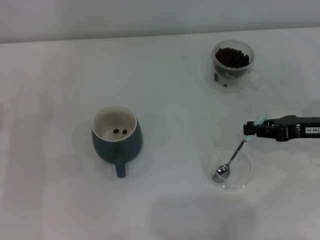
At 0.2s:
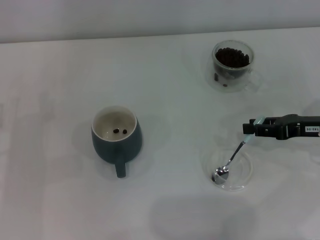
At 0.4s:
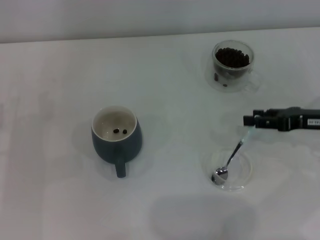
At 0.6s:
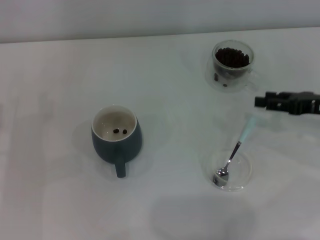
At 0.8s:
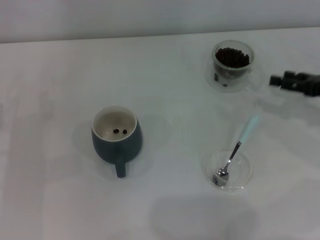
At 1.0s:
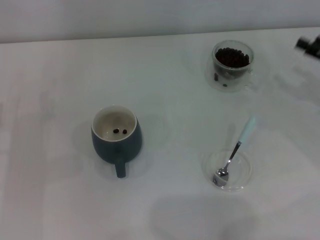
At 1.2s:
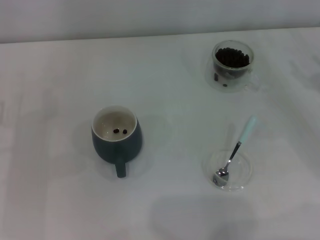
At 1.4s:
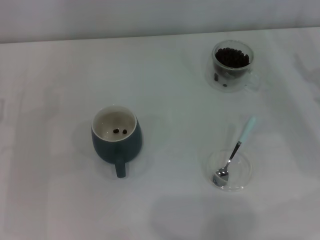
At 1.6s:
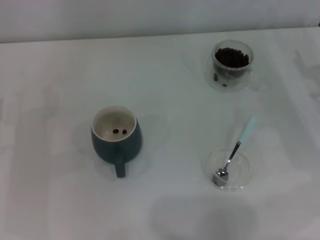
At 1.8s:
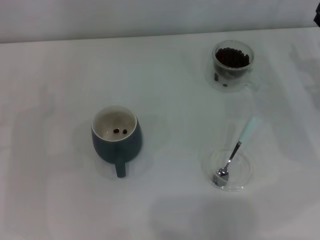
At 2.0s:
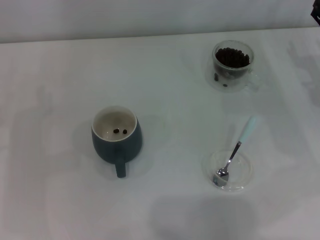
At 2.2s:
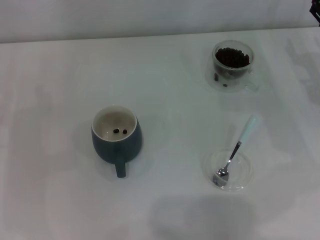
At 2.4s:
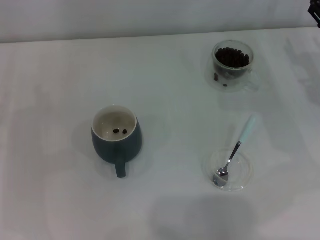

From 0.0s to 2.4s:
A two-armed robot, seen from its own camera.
Task of the whole recording: Use a blue spoon to take out the coffee beans from the glass and pour them into the gray cup.
From 0.0s to 1.2s: The right gripper shifts by some 5 cm, and opens its fingers.
